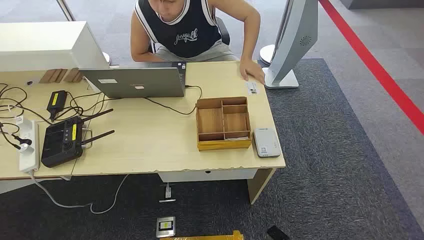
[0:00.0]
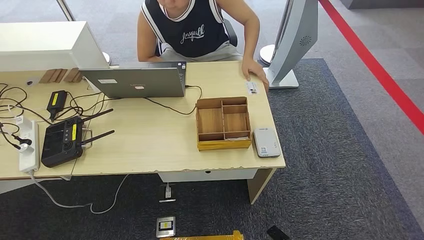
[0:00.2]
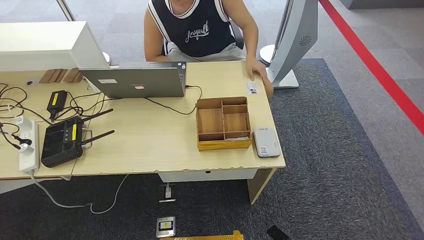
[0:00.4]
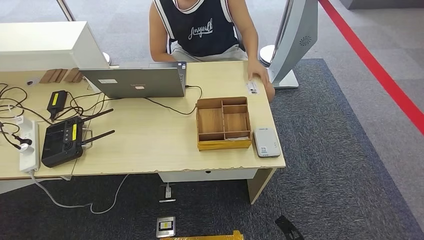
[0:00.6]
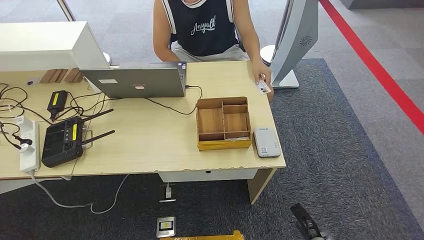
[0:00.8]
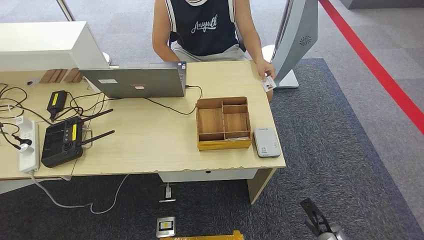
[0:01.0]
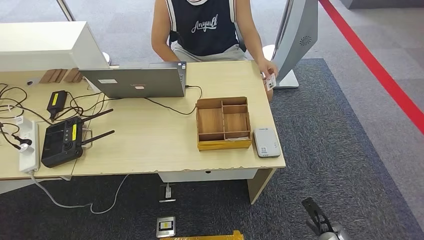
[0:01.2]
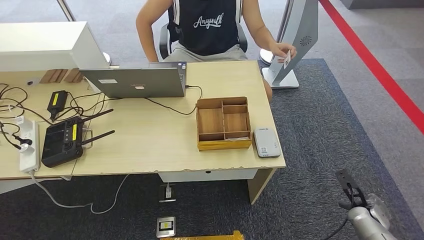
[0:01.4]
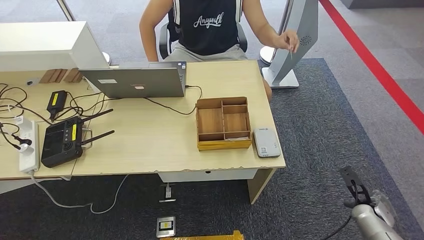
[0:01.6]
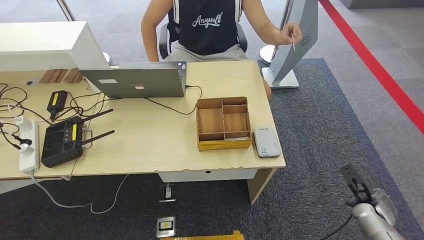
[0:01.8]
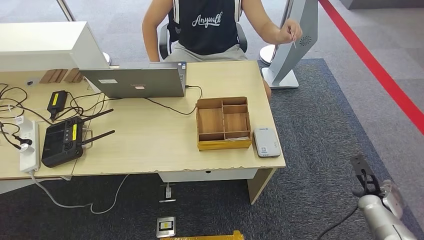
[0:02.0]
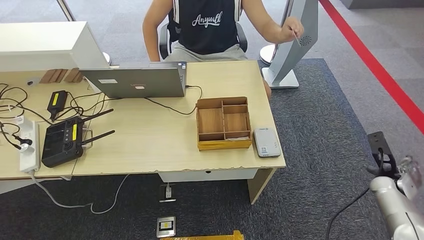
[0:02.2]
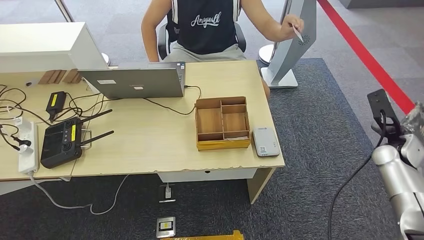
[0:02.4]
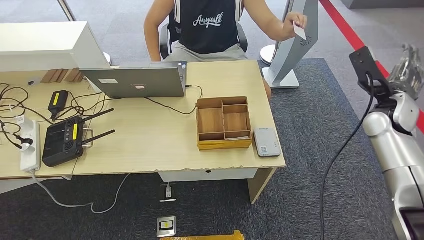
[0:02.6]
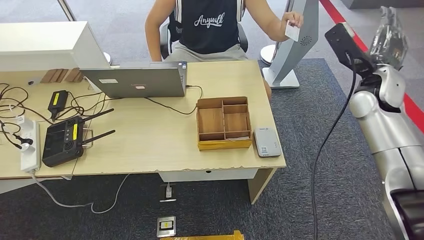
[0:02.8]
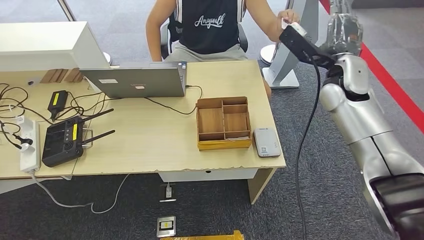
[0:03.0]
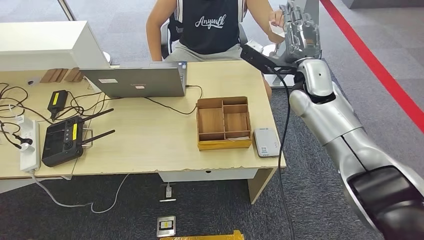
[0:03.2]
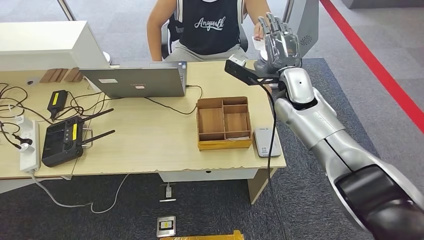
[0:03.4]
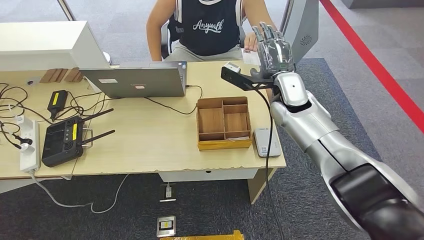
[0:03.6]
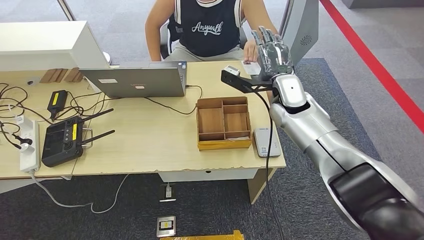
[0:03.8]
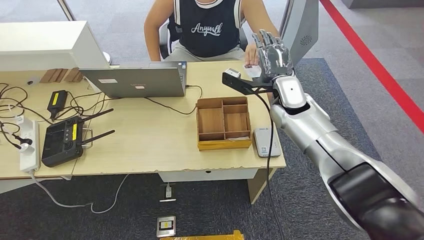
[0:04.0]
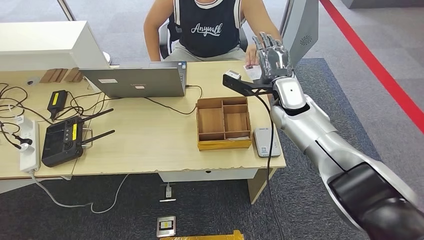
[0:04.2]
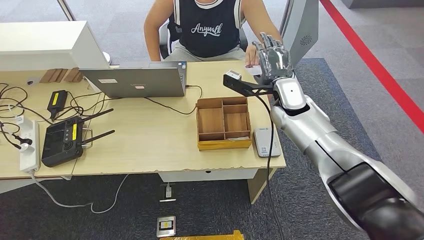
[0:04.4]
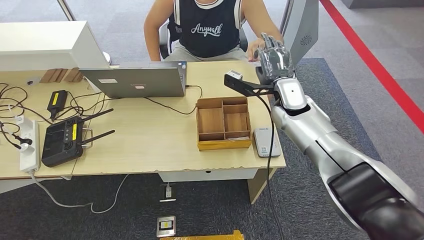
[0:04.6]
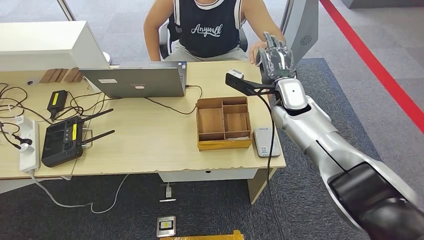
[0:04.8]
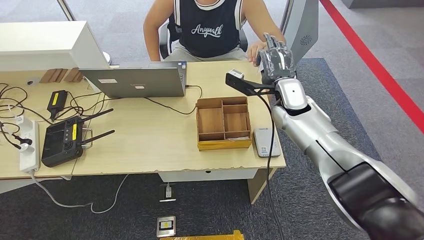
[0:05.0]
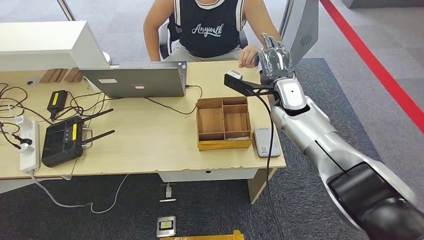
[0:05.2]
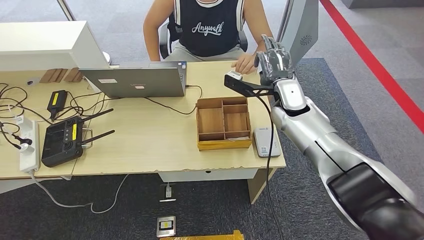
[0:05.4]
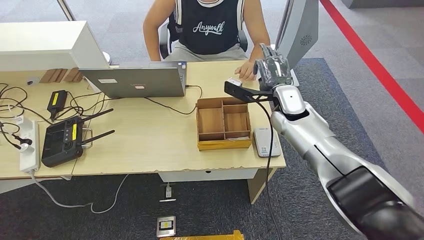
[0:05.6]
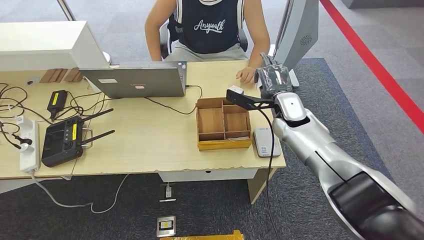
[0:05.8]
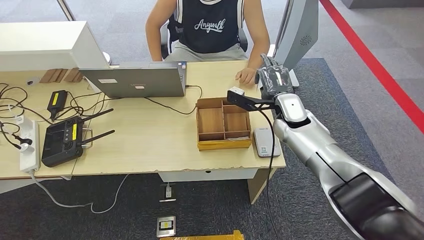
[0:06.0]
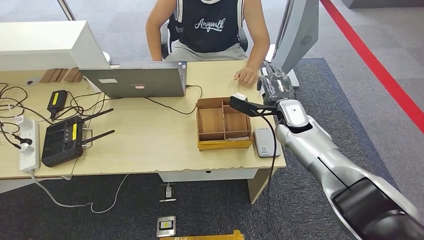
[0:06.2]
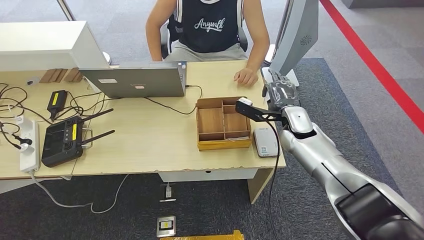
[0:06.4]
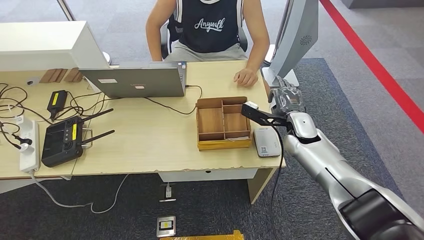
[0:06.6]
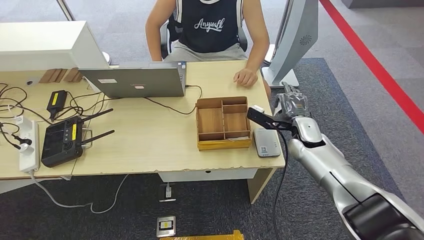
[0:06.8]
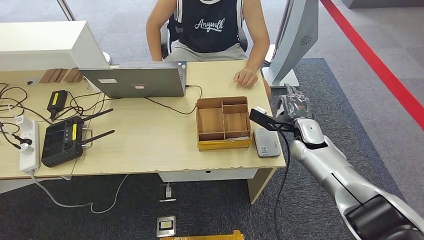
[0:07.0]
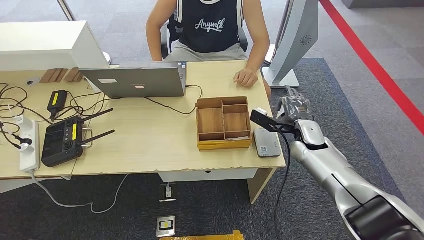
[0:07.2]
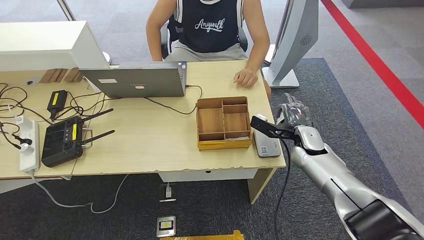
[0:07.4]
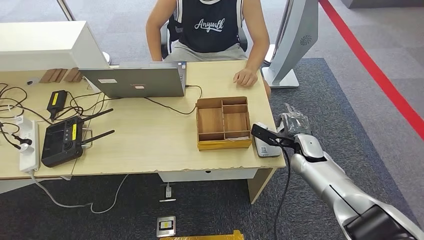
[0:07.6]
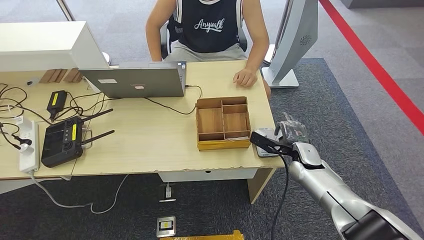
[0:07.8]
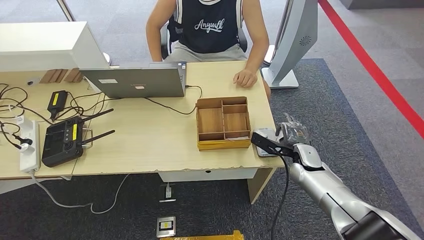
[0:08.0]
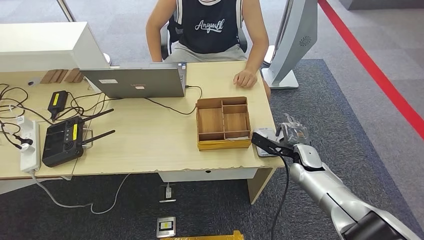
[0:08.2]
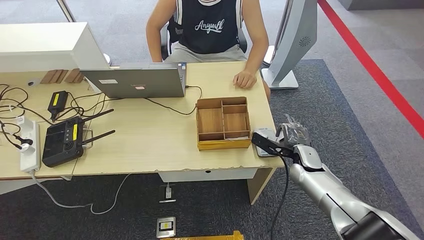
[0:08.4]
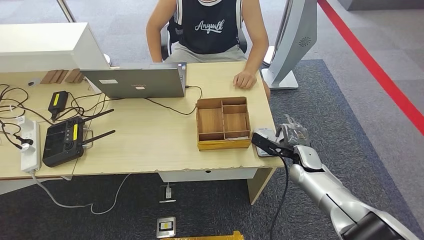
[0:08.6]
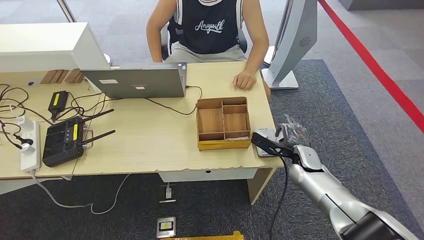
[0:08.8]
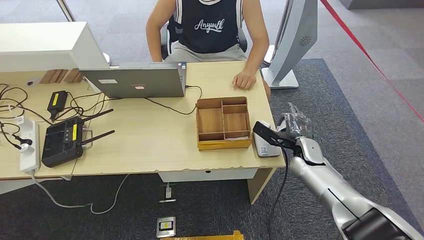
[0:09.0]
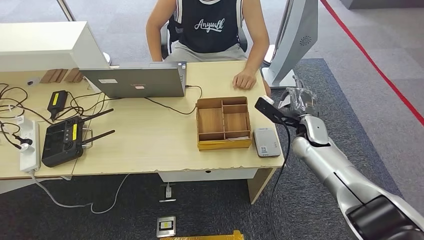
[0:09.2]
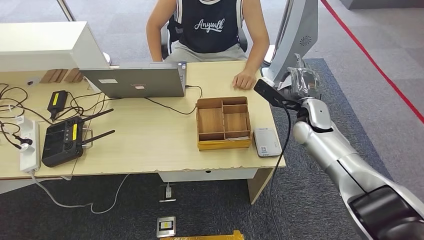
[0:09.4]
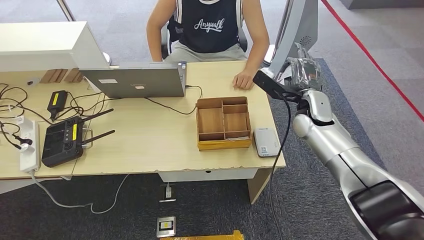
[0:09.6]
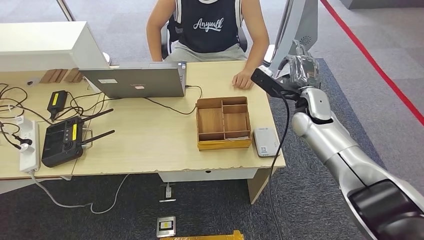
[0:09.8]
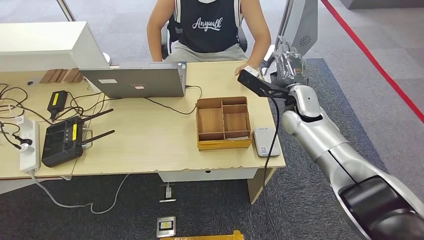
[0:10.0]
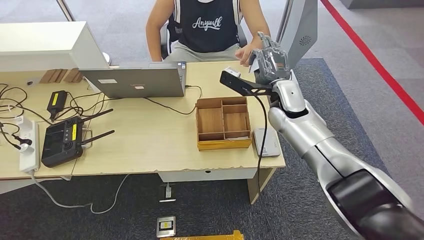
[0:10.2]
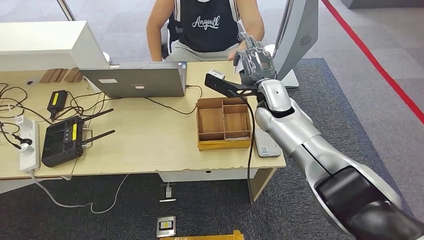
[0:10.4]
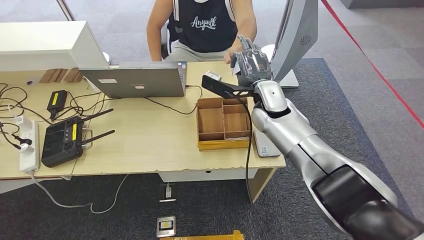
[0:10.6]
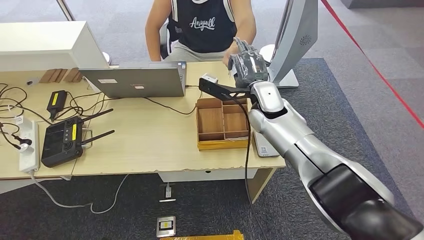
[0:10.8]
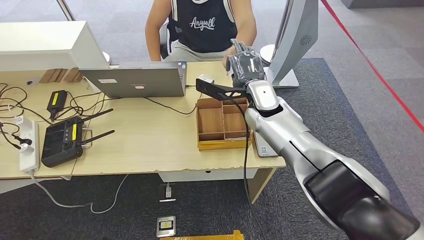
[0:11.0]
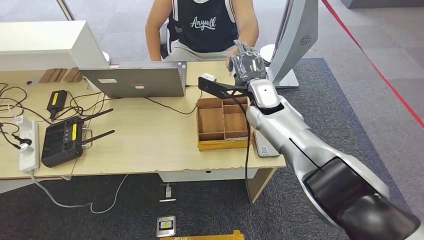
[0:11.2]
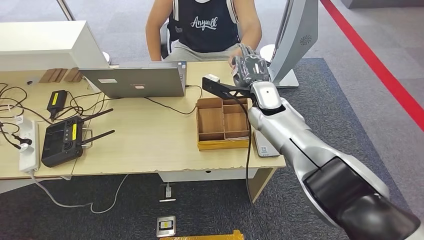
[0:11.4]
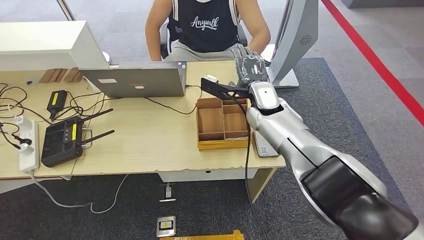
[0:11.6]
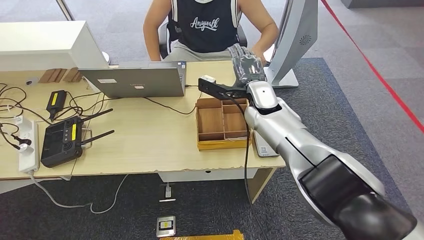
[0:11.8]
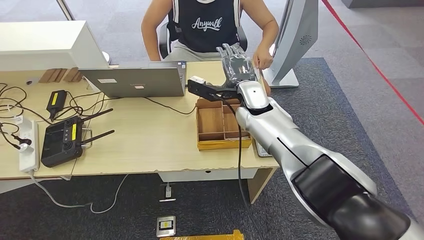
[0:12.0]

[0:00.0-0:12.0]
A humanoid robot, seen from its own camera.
Step, 0:00.0 to 0:05.2: Take the ID card from the person's hand.
Step, 0:05.6 to 0:08.4: Place the ID card on the card reader.
Step, 0:08.6 to 0:11.8: Hand the ID card to the person.
0:01.6 to 0:03.0: The right hand travels upward, forward and to the left by some 40 cm.
0:04.4 to 0:06.0: There are only small adjustments of the hands.
0:06.0 to 0:07.6: The right hand moves downward, to the right and backward, roughly 15 cm.
0:07.6 to 0:09.0: The hands make only small movements.
0:09.0 to 0:10.4: The right hand travels upward, to the left and forward by some 20 cm.
0:10.4 to 0:12.0: The right hand ends up approximately 5 cm from where it was.

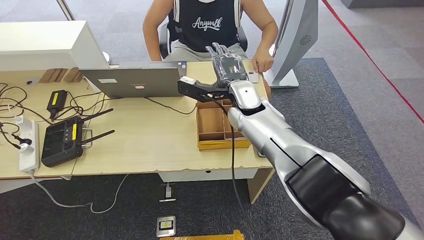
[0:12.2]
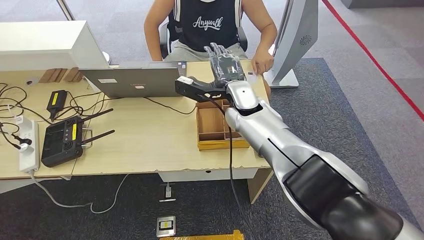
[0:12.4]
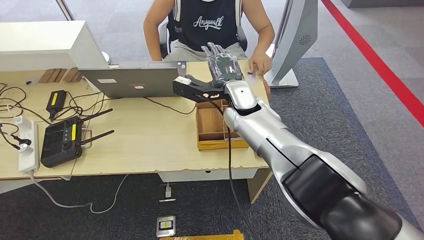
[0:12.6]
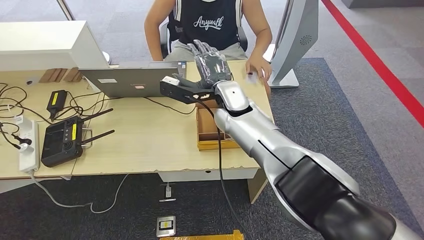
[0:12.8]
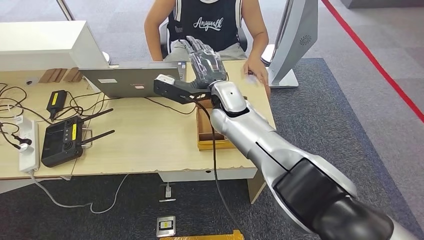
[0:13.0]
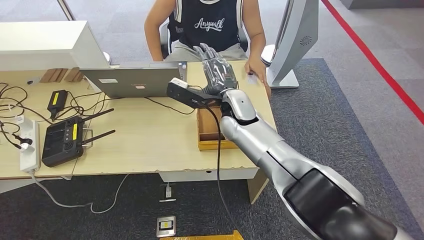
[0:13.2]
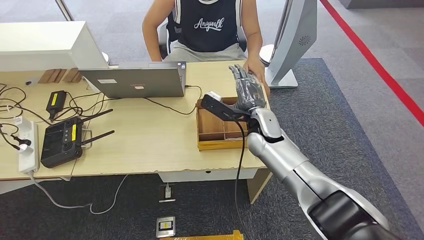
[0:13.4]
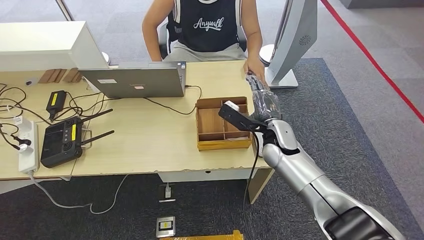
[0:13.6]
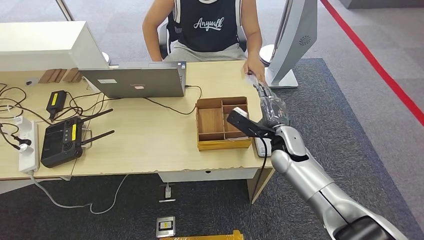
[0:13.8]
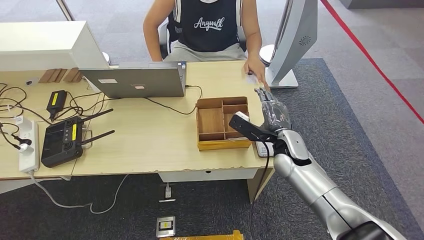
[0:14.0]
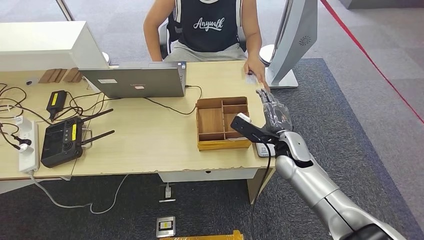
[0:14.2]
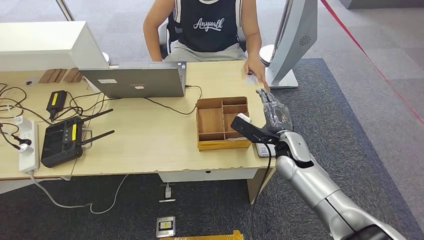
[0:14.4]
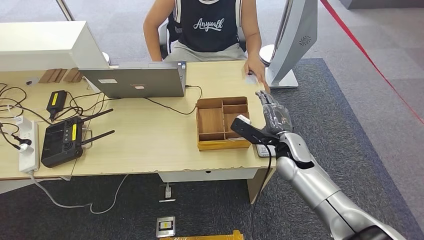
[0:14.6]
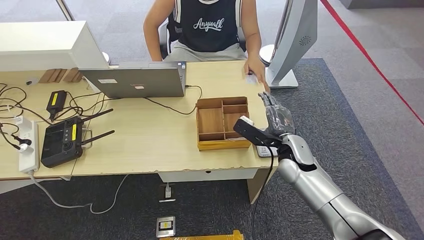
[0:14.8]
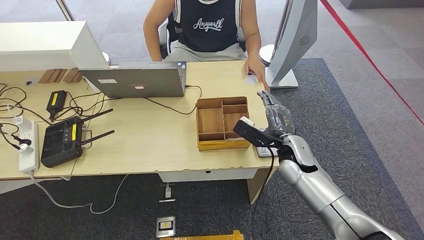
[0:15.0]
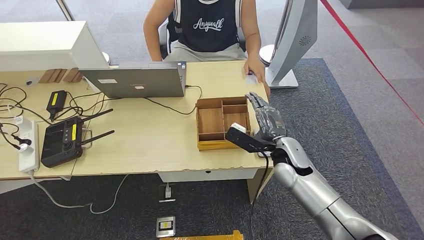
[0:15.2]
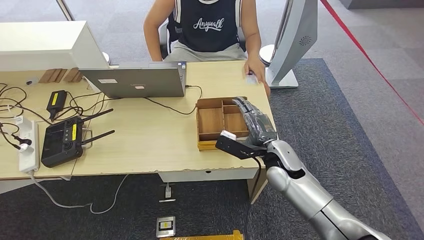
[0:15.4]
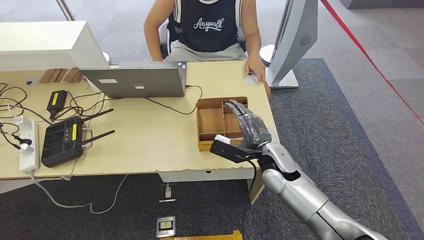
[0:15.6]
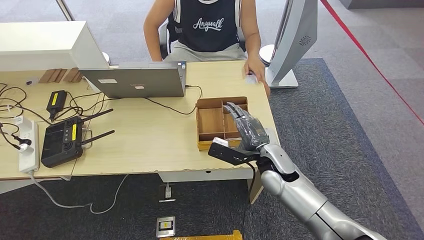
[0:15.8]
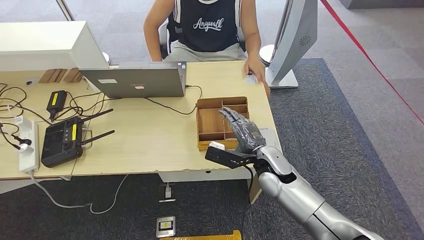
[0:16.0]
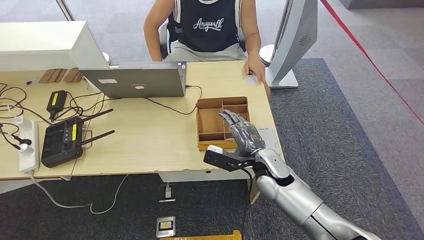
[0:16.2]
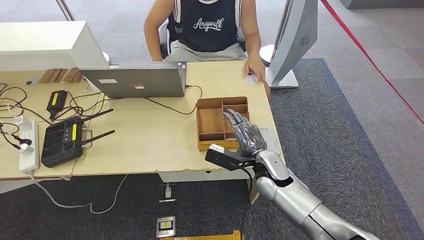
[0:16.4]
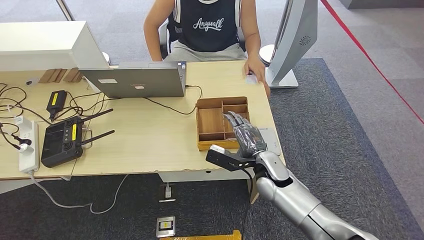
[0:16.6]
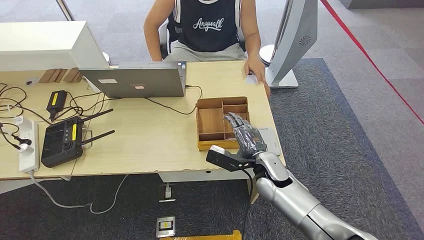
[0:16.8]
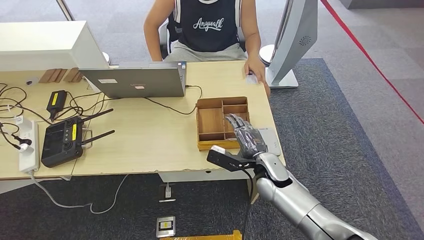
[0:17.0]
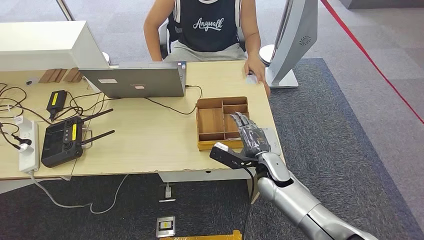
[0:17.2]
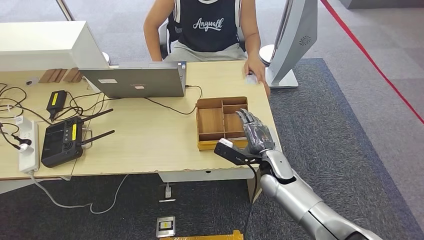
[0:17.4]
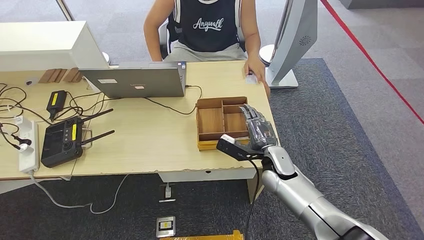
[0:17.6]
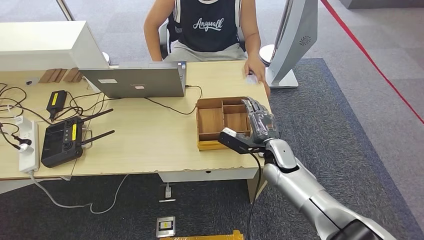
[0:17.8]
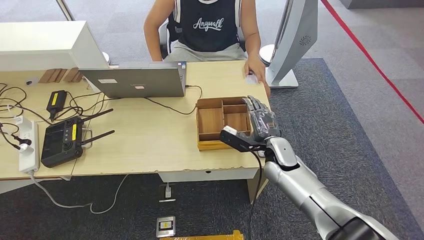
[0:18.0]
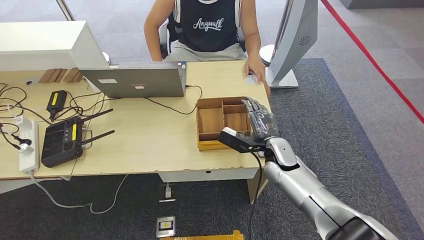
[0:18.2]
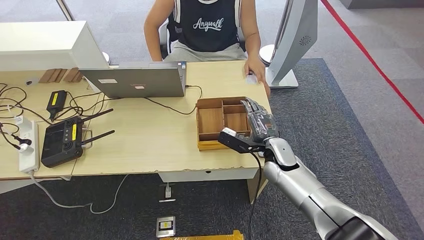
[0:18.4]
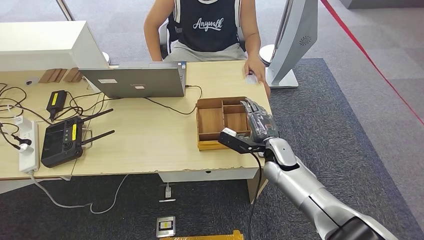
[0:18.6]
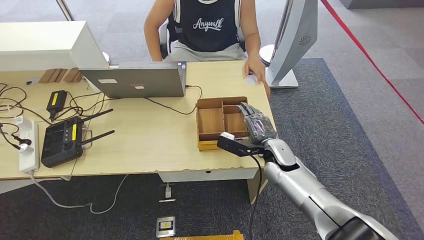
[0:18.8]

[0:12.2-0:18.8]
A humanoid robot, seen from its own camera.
0:12.2 to 0:13.8: The right hand travels to the right, downward and backward by approximately 15 cm.
0:13.8 to 0:15.4: The hands make only small movements.
0:15.4 to 0:17.2: The right hand moves approximately 5 cm.
0:17.2 to 0:18.8: The hands make only small movements.
